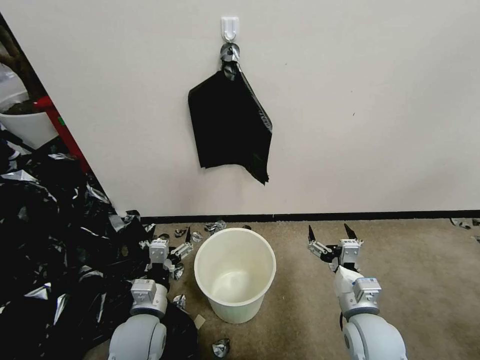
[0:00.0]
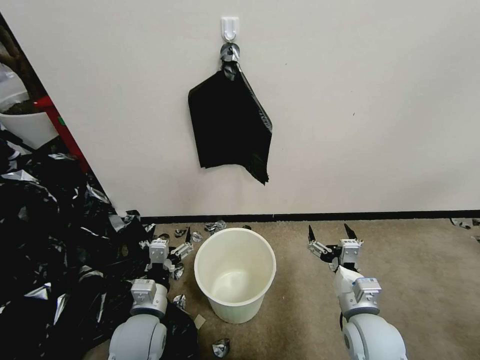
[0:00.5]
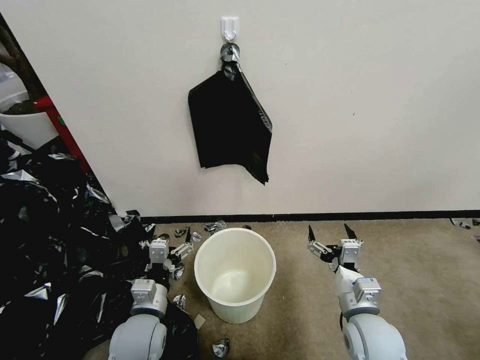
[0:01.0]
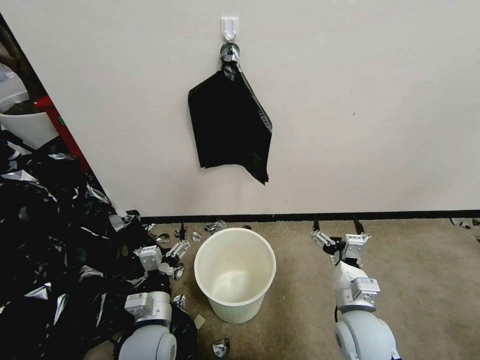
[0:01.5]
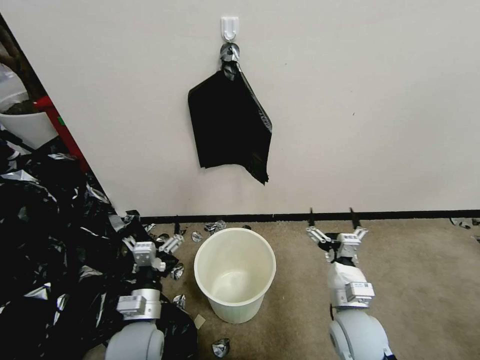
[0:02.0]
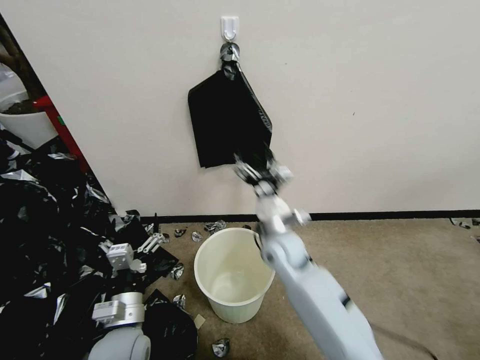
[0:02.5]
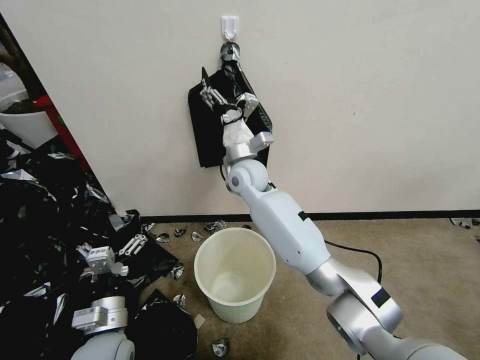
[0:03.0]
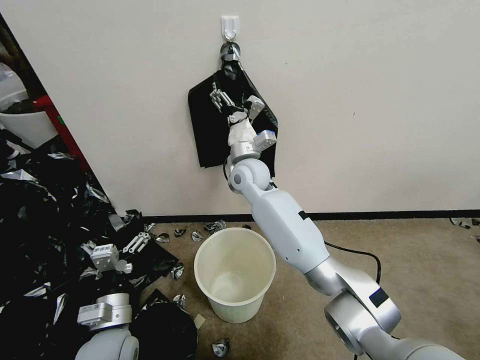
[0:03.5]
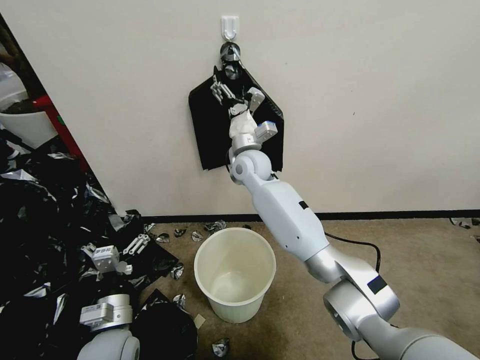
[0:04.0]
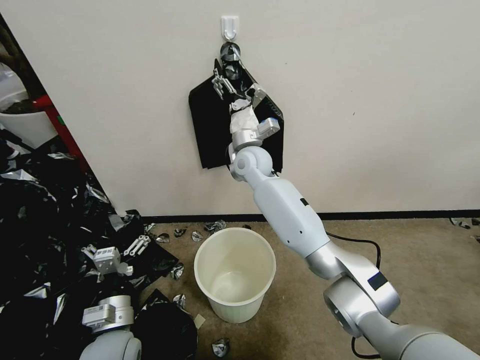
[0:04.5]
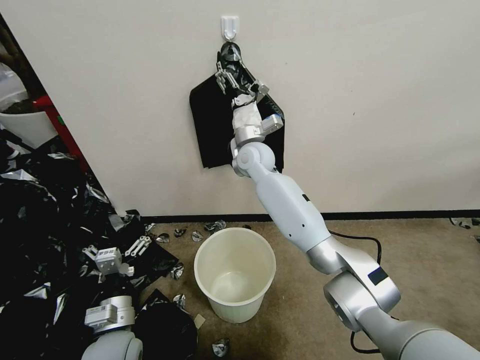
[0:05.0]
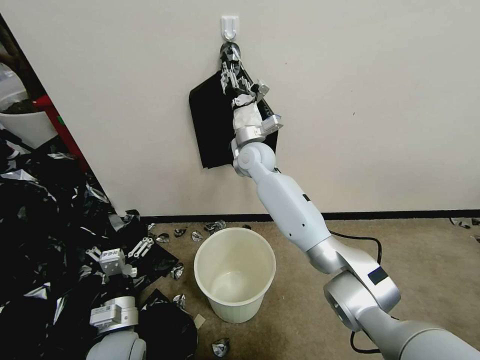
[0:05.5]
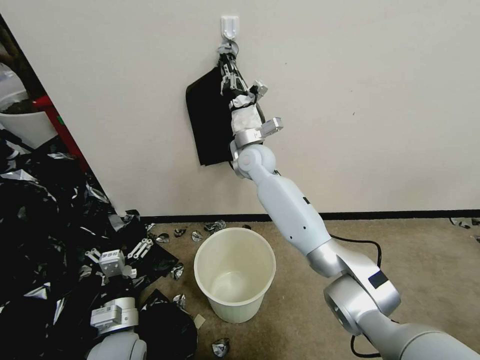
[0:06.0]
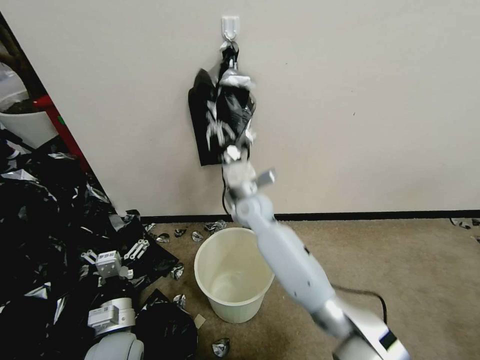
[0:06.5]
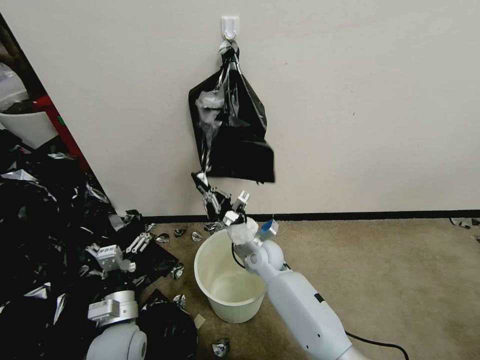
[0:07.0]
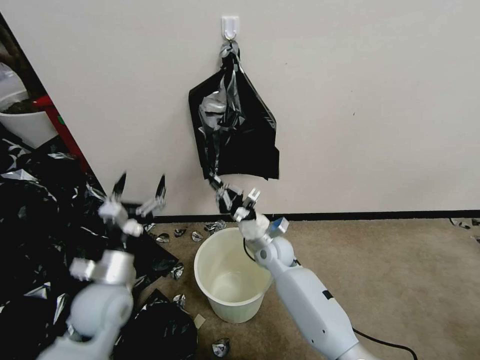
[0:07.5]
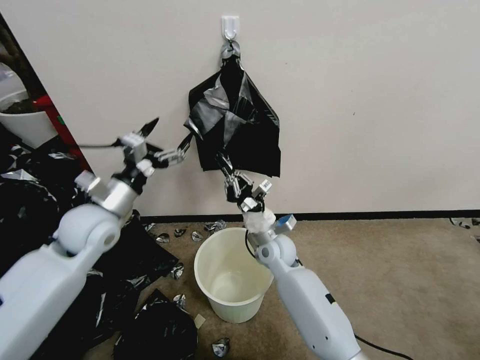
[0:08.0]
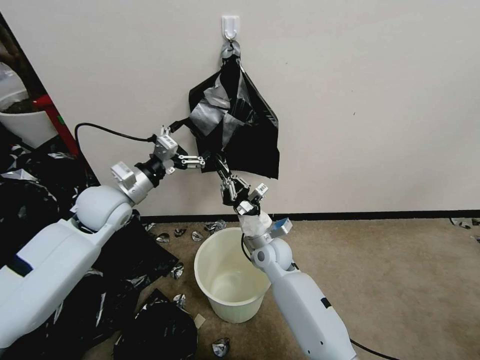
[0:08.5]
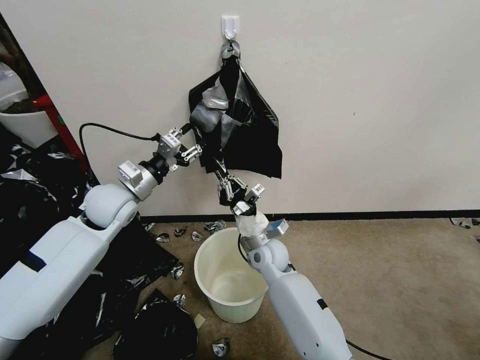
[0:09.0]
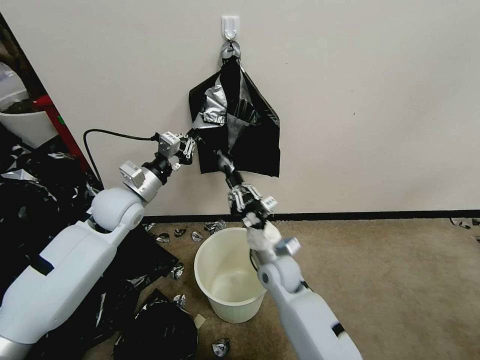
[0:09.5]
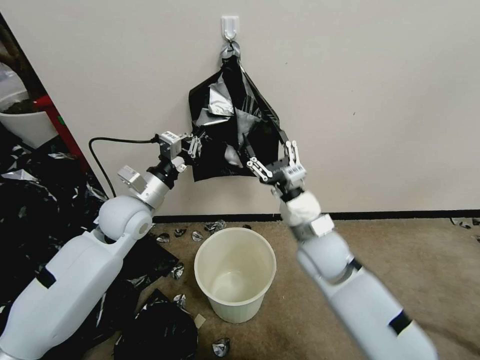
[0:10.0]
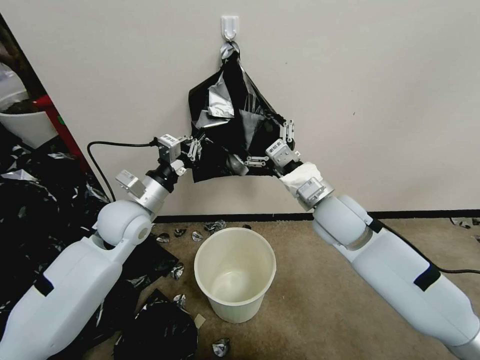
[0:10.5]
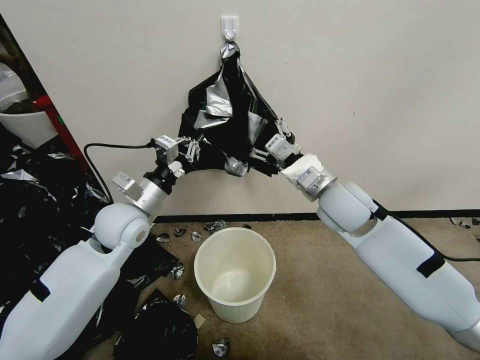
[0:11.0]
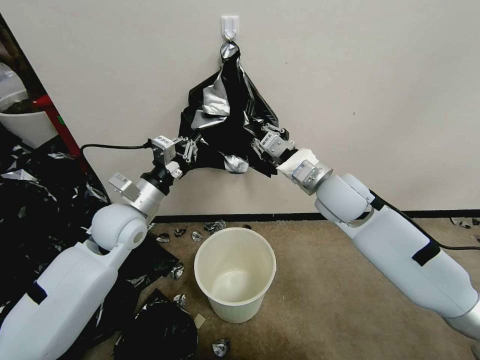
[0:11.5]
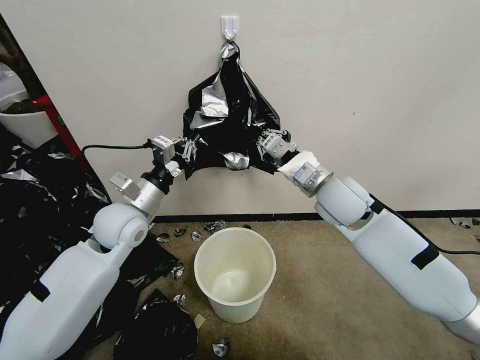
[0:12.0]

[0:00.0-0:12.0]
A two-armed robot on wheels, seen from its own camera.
Task of the whole recording: Place a trash bag onto the trash bin.
0:02.0 to 0:04.0: The right gripper heads forward, to the left and upward, covering some 40 cm.
0:04.0 to 0:06.0: The right gripper closes its fingers.
0:06.0 to 0:08.0: The right gripper travels downward and backward by about 25 cm, while the left gripper goes about 25 cm forward and upward.
0:08.0 to 0:10.0: The right gripper travels upward, to the right and backward by roughly 15 cm, and opens its fingers; the left gripper moves to the right, some 5 cm, and closes.
0:10.0 to 0:12.0: The right gripper goes about 10 cm forward and upward, and closes its fingers.

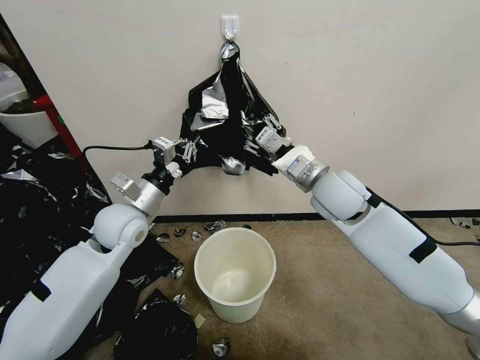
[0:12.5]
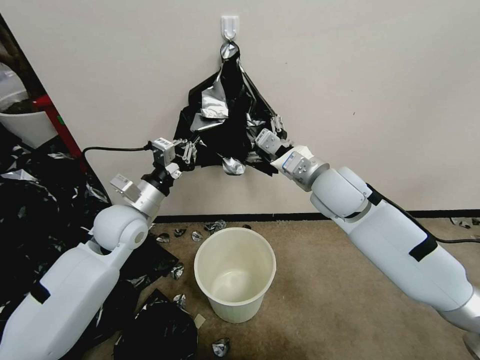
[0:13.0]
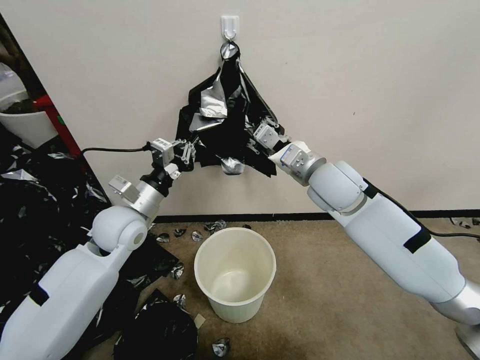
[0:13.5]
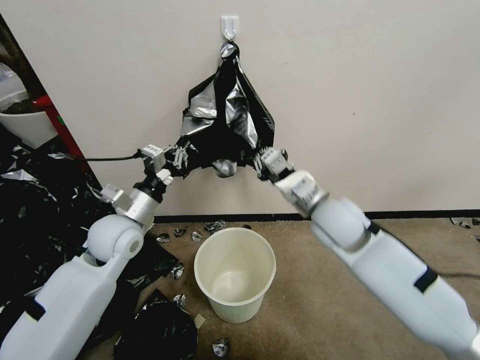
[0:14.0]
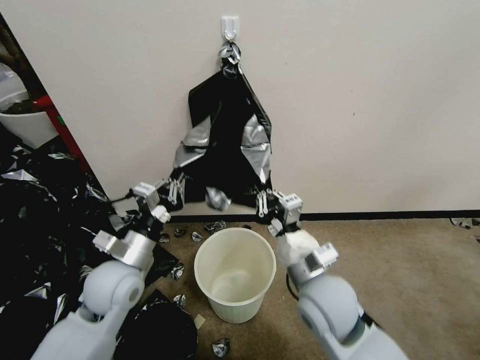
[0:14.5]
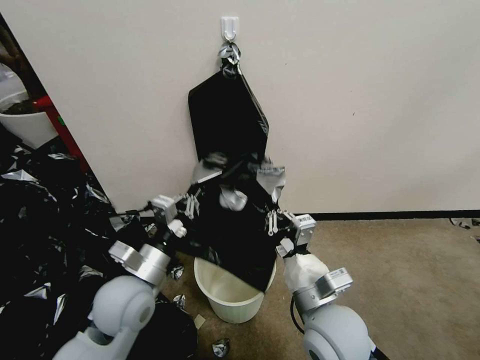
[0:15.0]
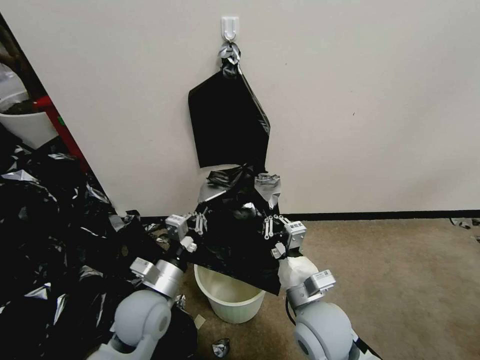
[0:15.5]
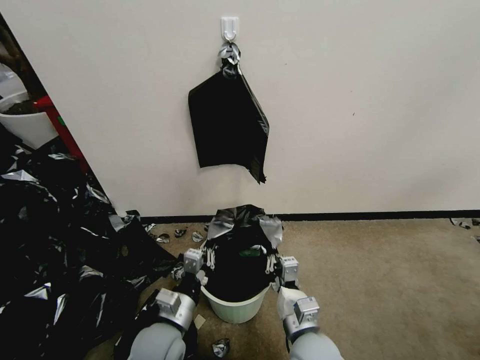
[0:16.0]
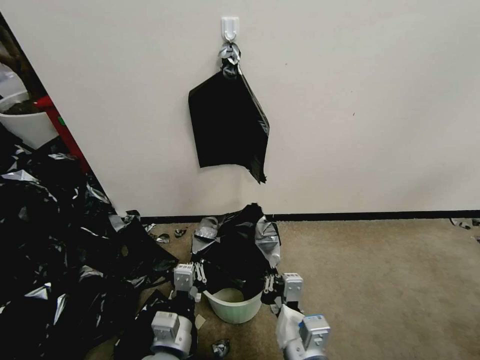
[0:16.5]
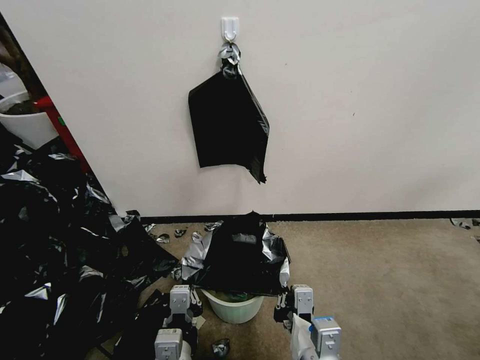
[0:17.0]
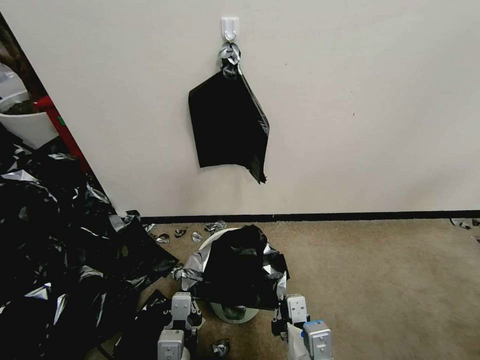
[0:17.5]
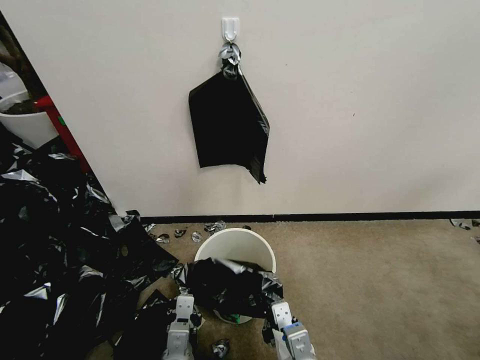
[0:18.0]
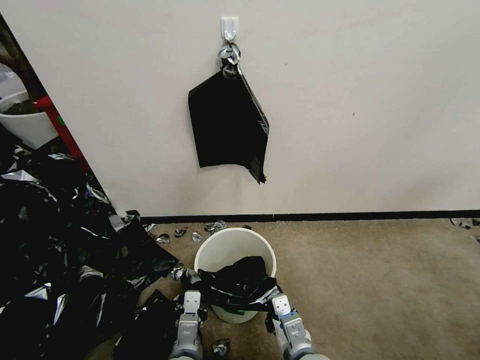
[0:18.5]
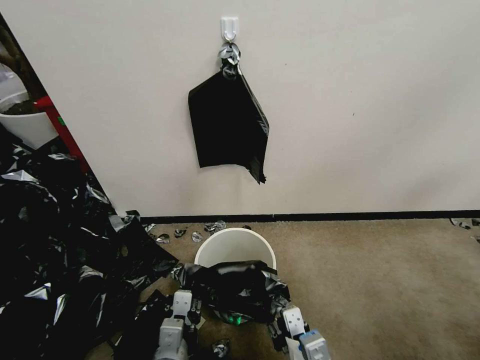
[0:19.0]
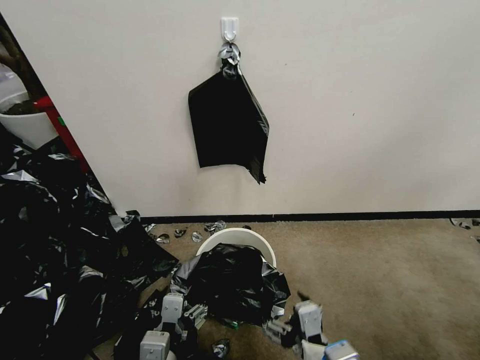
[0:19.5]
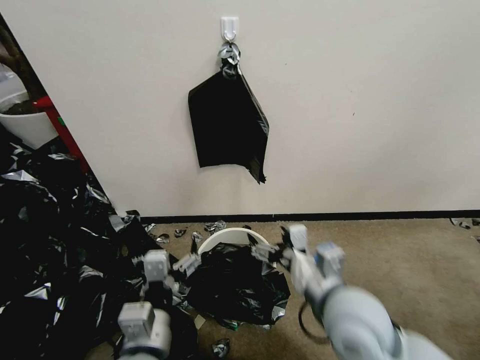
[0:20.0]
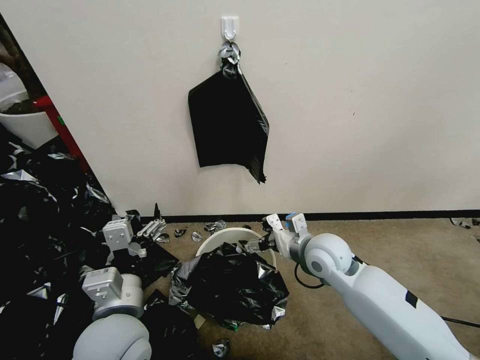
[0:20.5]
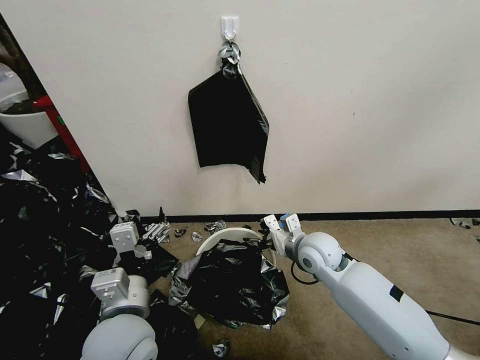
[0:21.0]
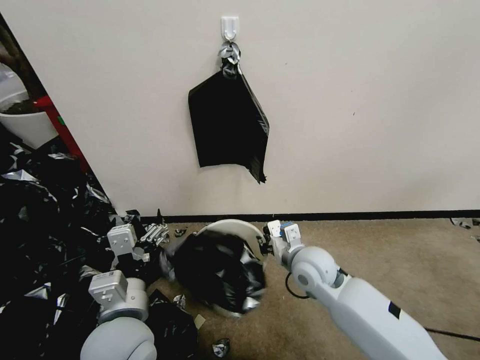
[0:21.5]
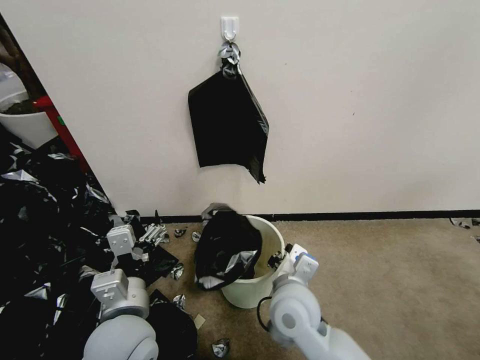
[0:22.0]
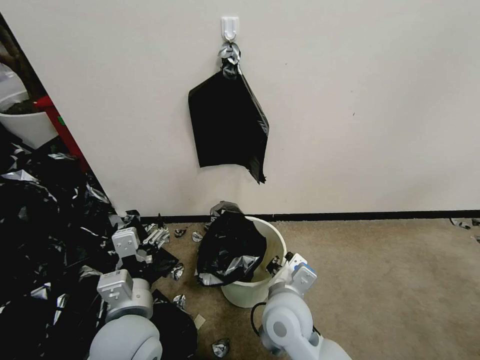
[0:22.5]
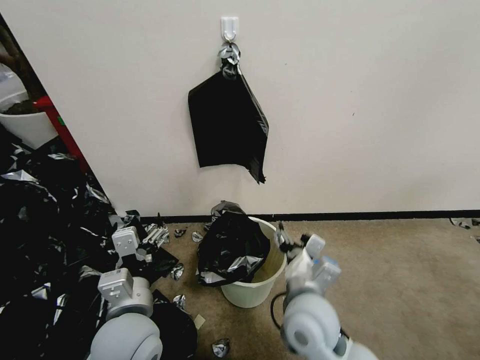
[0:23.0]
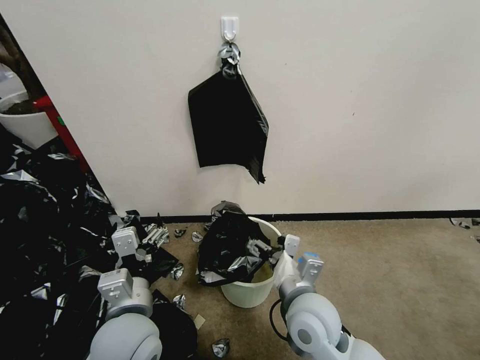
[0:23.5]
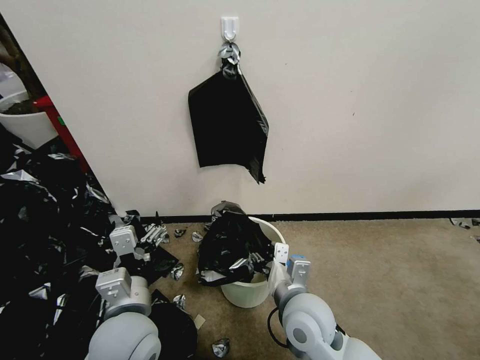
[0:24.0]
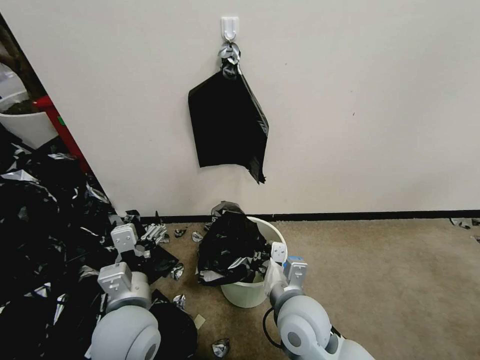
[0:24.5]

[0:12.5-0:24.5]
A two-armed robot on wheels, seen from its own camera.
Task of the whole recording: Place a trash bag onto the trash bin.
0:12.5 to 0:14.5: The left gripper is displaced backward and downward by approximately 10 cm. Meanwhile the right gripper shifts roughly 20 cm backward and downward, and closes.
0:14.5 to 0:16.5: The left gripper moves backward, to the right and downward, some 20 cm, while the right gripper is displaced backward and downward by approximately 15 cm.
0:16.5 to 0:18.5: The grippers both shift downward by about 5 cm.
0:18.5 to 0:20.5: The right gripper goes some 20 cm forward, and opens up. Meanwhile the left gripper moves upward and to the left, approximately 20 cm, and opens up.
0:20.5 to 0:22.5: The right gripper shifts approximately 15 cm backward and to the left, and closes its fingers.
0:22.5 to 0:24.5: The right gripper opens, then closes once more.

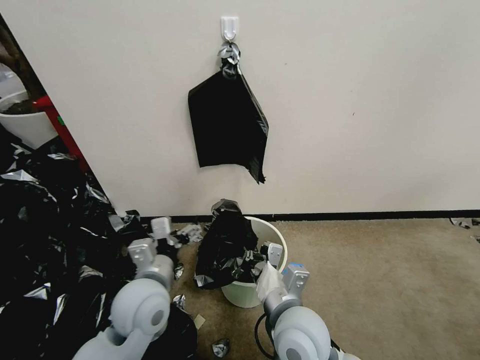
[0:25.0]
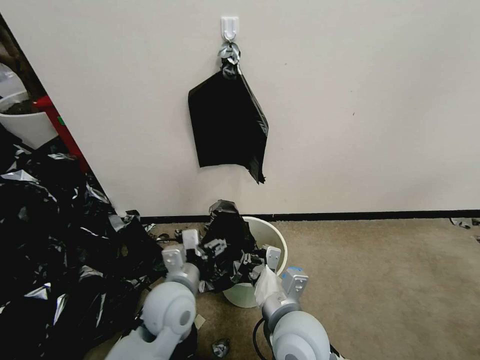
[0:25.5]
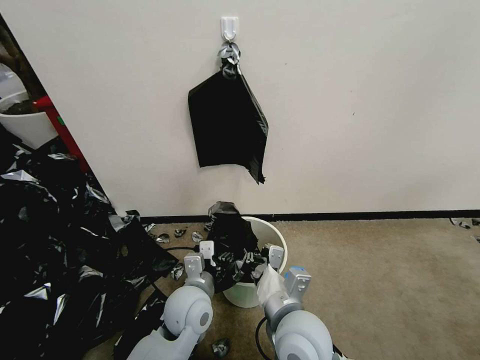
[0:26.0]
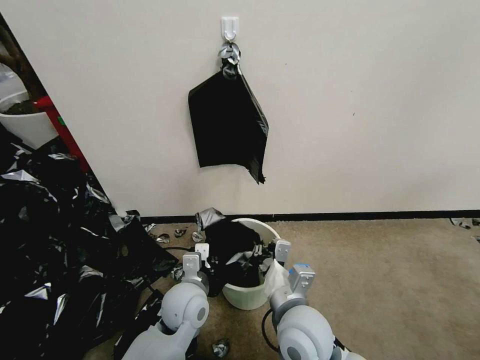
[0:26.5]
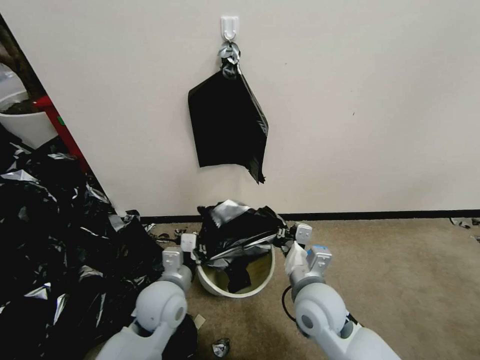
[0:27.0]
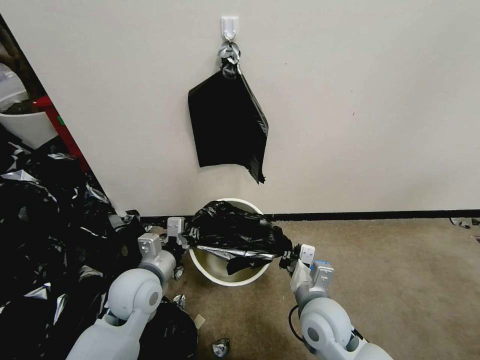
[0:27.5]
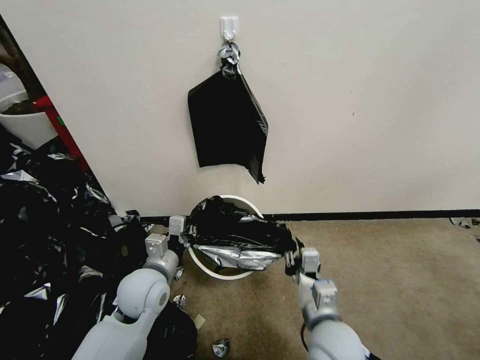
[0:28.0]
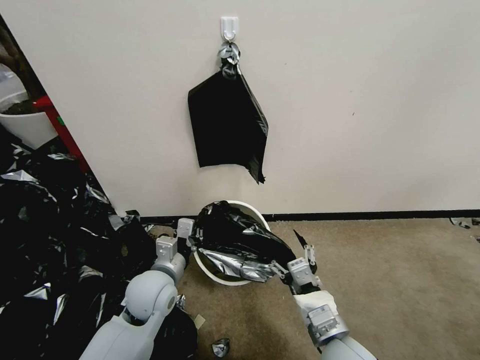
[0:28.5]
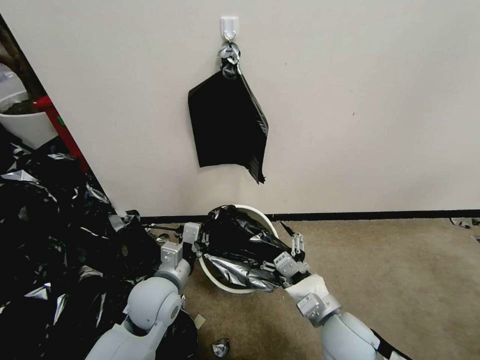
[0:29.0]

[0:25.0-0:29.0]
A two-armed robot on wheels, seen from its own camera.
Task of the whole recording: Place a trash bag onto the trash bin.
0:25.0 to 0:27.0: The left gripper heads downward, covering roughly 5 cm, and closes up. Meanwhile the right gripper heads to the right and forward, covering some 10 cm.
0:27.0 to 0:29.0: The right gripper heads backward, covering approximately 5 cm, and opens.
